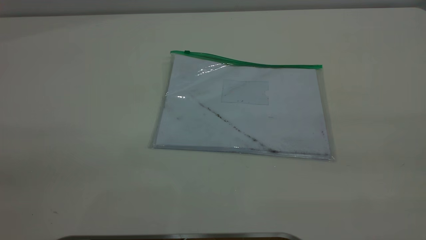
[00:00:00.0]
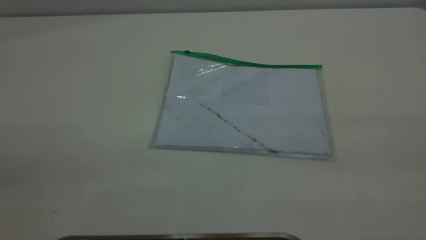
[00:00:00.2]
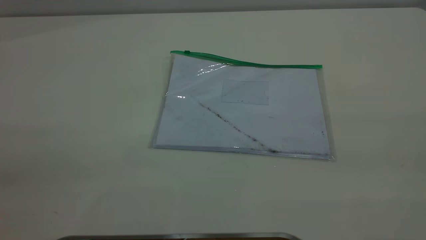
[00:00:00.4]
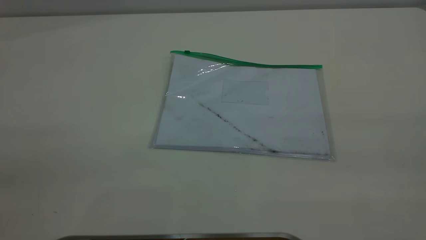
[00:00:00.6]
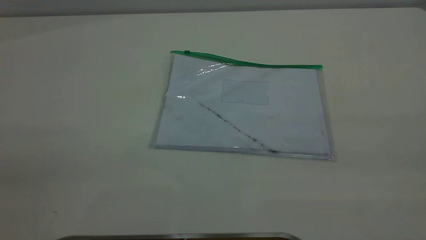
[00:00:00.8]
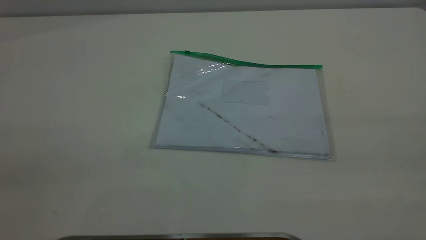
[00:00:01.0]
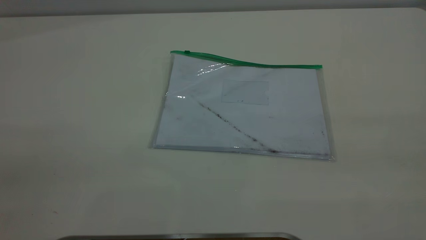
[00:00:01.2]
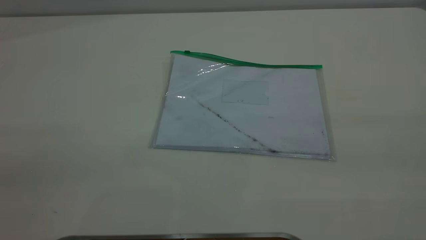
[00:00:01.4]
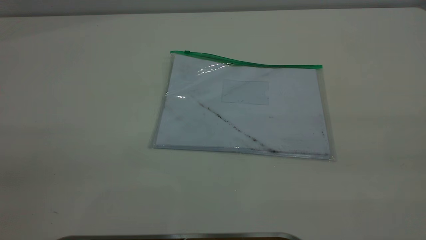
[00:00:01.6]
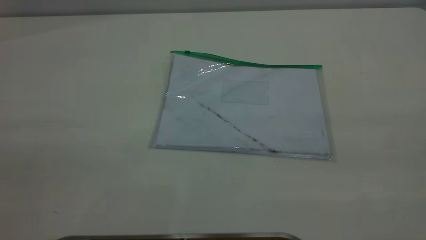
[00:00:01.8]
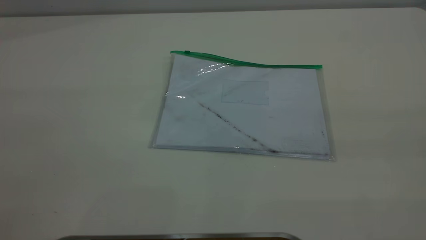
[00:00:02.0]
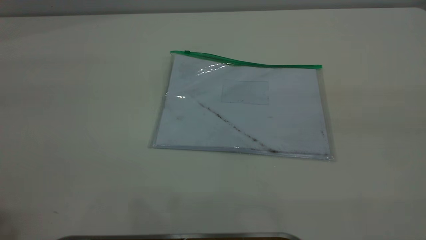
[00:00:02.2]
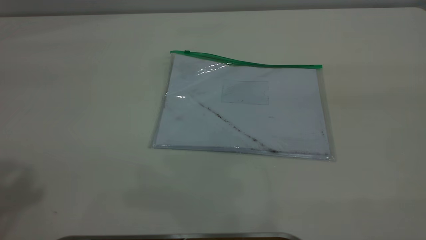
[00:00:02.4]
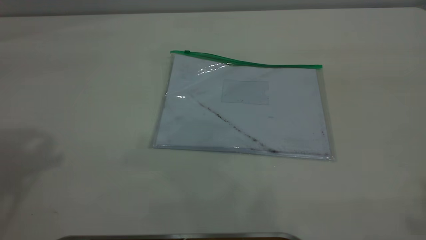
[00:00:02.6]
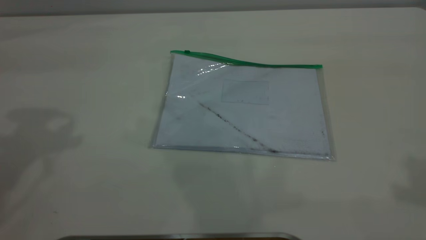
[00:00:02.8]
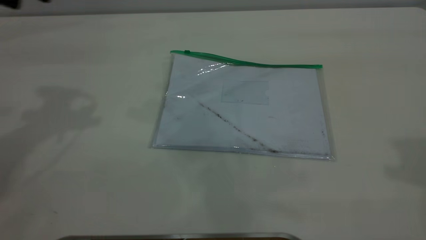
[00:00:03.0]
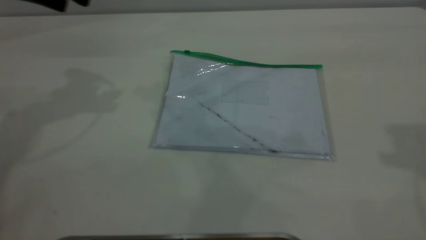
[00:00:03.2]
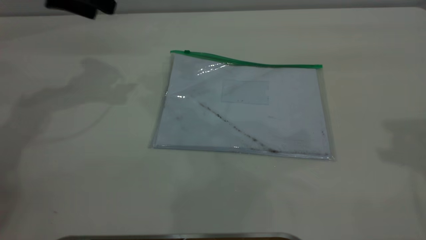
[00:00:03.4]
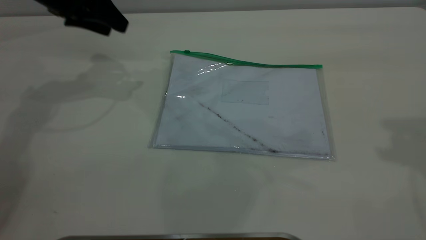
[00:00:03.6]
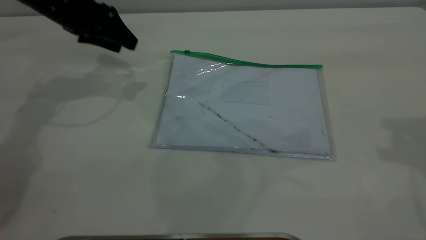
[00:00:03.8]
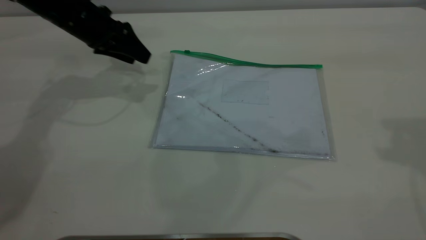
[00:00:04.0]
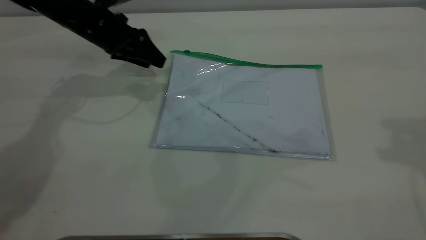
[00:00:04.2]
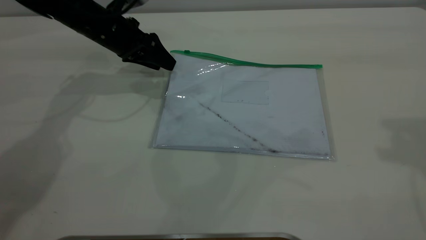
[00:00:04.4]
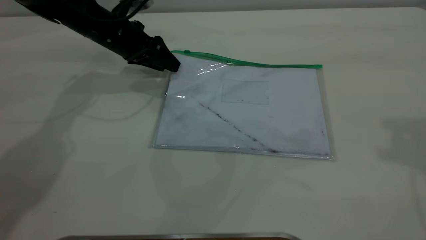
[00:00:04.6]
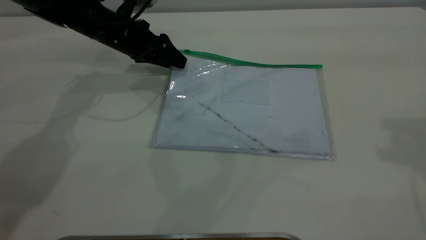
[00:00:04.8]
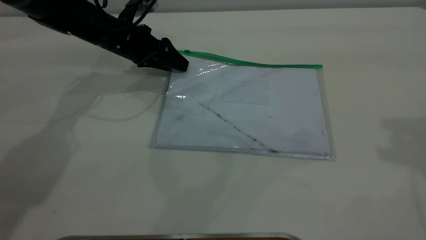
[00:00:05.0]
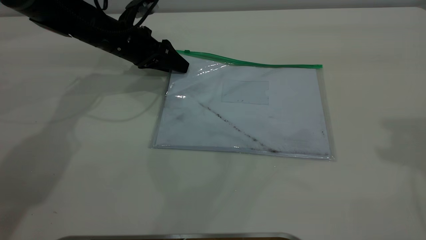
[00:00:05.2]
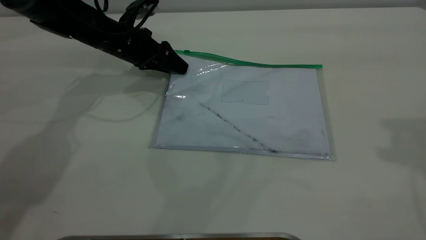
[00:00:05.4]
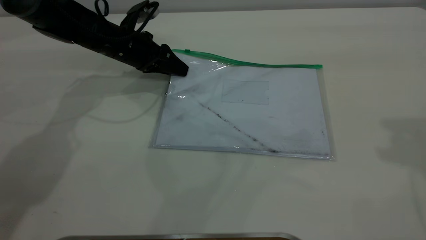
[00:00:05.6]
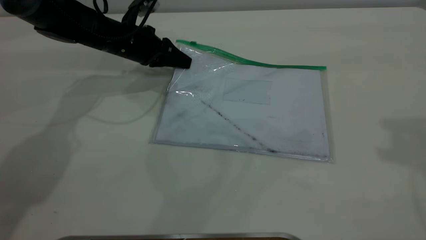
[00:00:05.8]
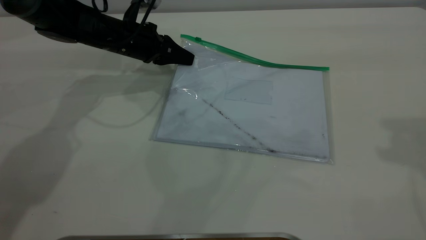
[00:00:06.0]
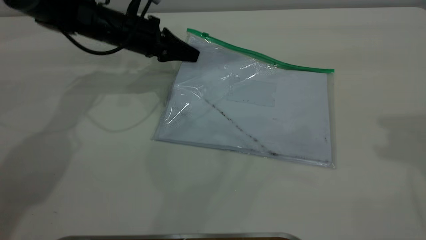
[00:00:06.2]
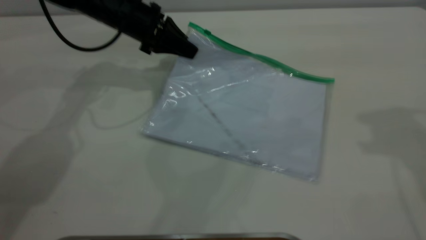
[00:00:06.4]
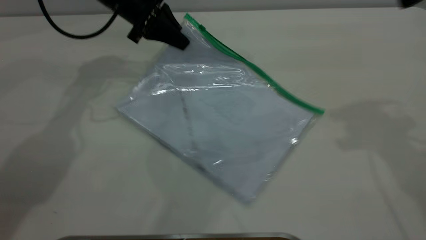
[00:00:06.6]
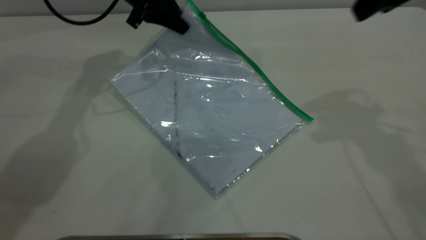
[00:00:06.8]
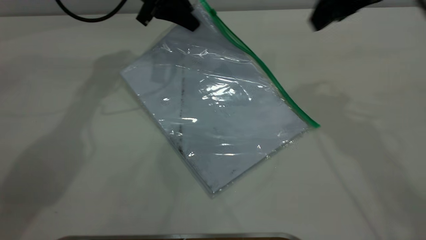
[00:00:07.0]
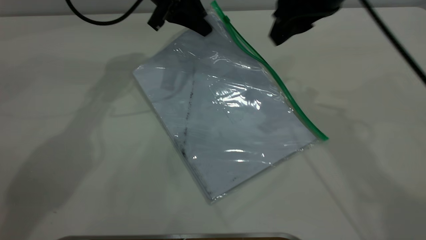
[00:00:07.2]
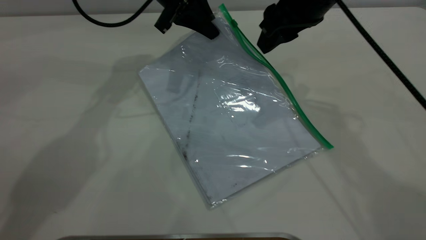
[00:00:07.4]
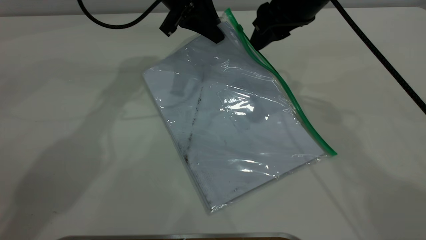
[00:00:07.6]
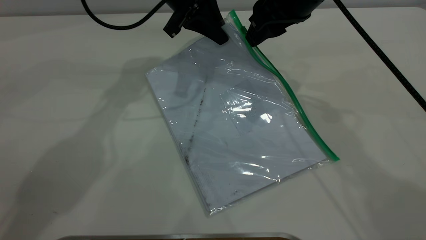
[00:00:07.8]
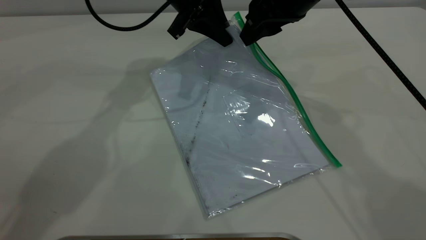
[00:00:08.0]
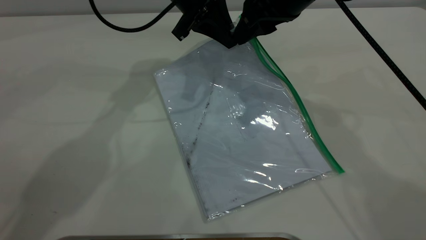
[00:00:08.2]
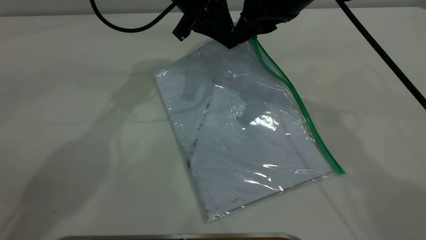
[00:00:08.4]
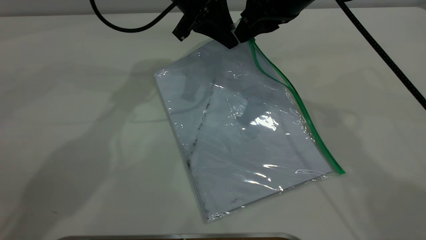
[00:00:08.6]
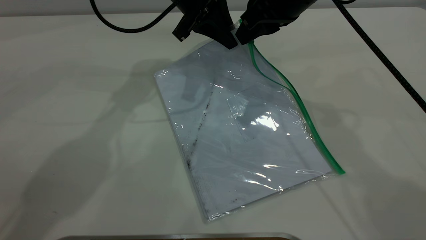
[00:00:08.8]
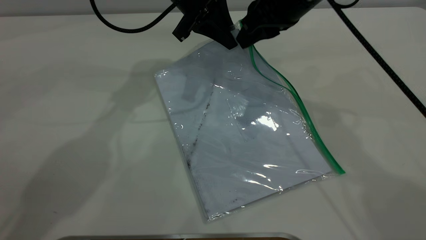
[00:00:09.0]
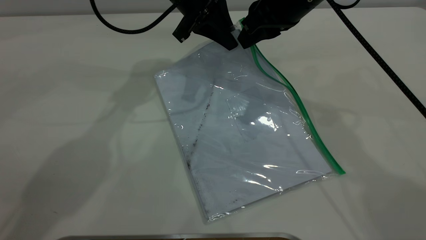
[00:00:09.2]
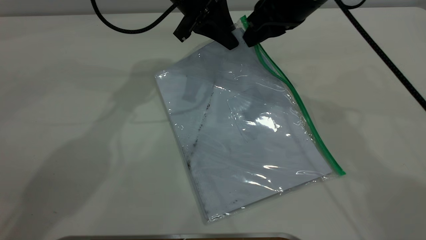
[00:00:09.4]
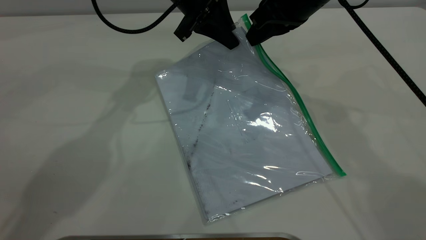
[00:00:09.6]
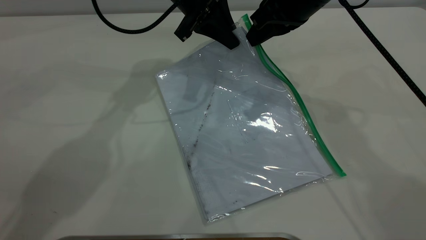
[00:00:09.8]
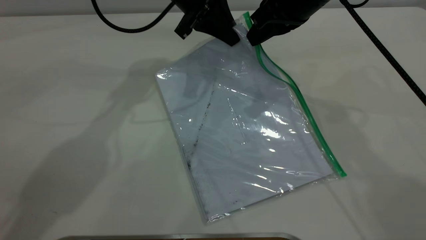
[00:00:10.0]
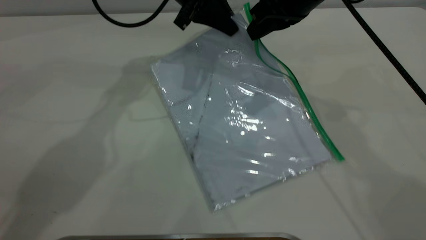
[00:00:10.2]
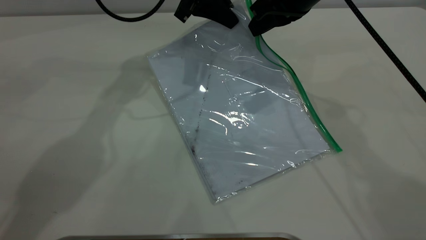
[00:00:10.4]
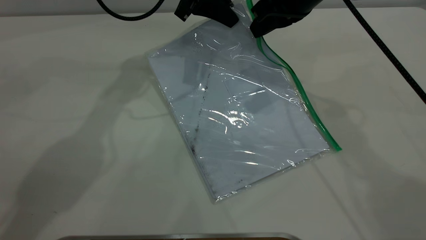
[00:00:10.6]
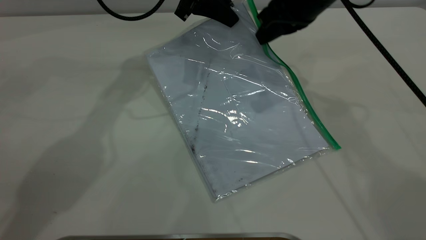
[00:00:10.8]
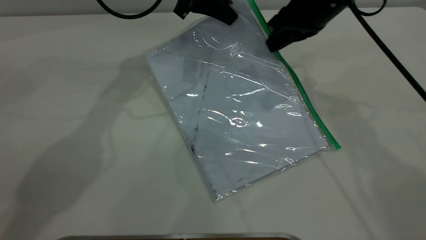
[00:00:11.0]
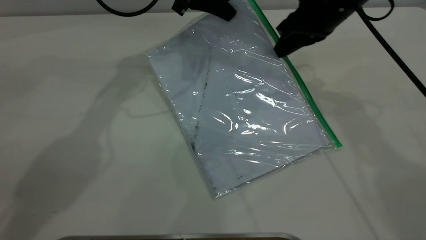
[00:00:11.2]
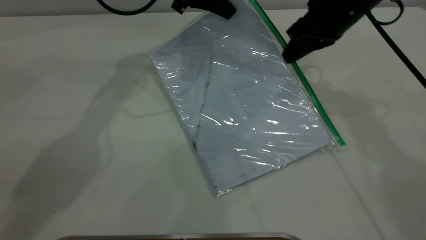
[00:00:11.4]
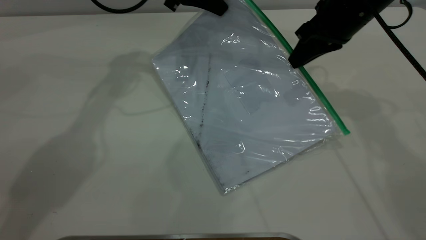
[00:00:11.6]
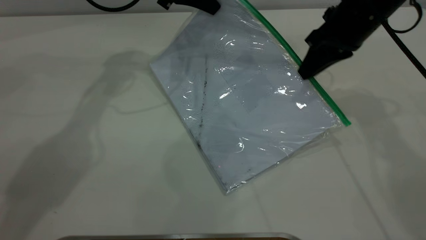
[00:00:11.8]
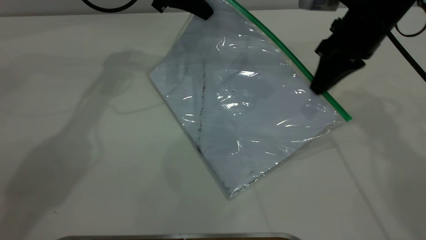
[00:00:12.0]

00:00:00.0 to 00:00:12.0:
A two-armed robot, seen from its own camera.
Step, 00:00:00.0 to 00:00:06.4: Pick up the transparent plastic bag with the left gripper.
00:00:00.0 to 00:00:01.6: Both grippers stay put.
00:00:03.0 to 00:00:04.4: The left gripper heads downward, forward and to the right, covering some 25 cm.
00:00:04.4 to 00:00:06.0: The left gripper closes.
00:00:06.0 to 00:00:07.6: The left gripper shifts about 15 cm upward and to the right. The right gripper travels to the left, downward and forward by about 25 cm.
00:00:07.6 to 00:00:09.0: The right gripper closes up.
00:00:09.0 to 00:00:10.4: The grippers make only small movements.
00:00:10.4 to 00:00:12.0: The right gripper heads to the right, covering some 10 cm.

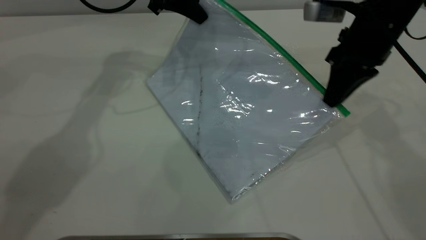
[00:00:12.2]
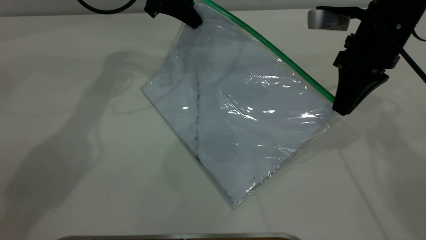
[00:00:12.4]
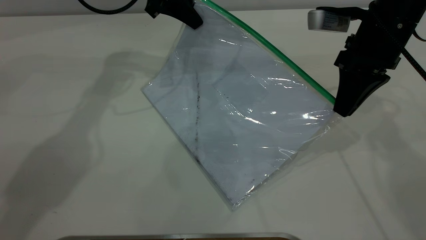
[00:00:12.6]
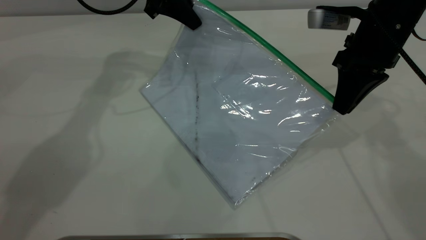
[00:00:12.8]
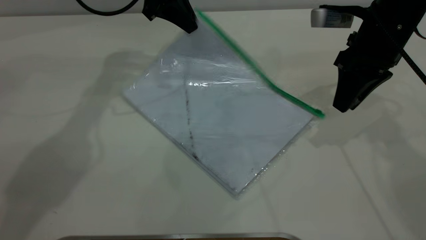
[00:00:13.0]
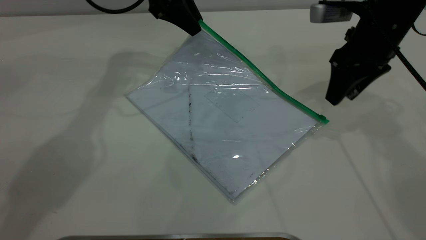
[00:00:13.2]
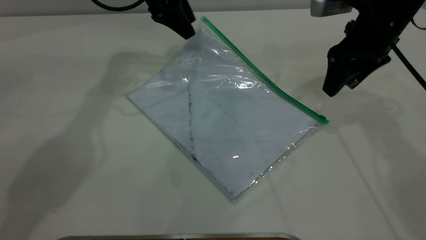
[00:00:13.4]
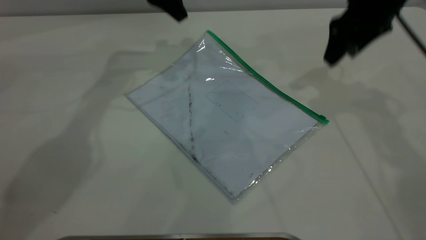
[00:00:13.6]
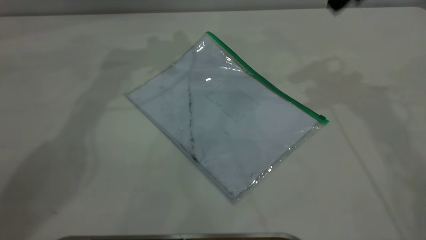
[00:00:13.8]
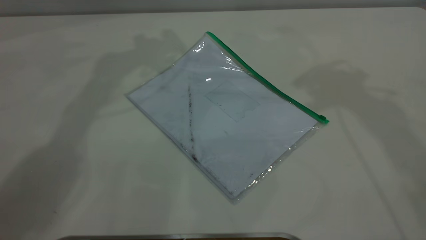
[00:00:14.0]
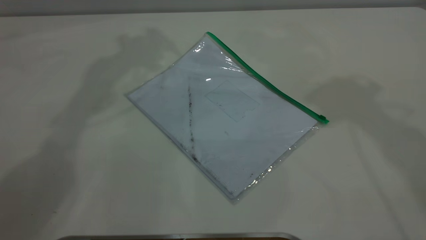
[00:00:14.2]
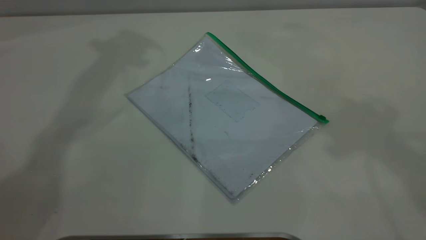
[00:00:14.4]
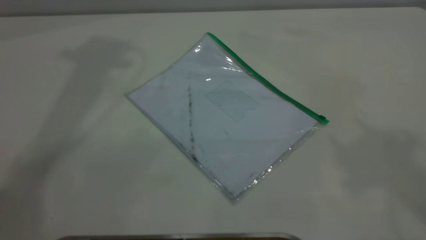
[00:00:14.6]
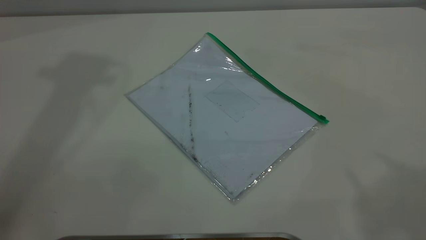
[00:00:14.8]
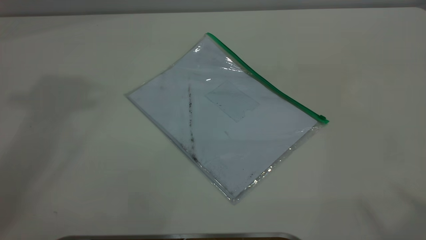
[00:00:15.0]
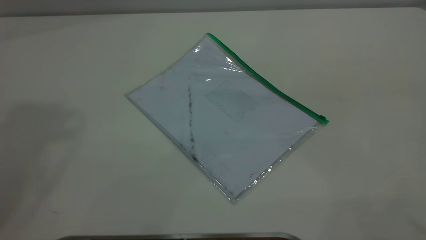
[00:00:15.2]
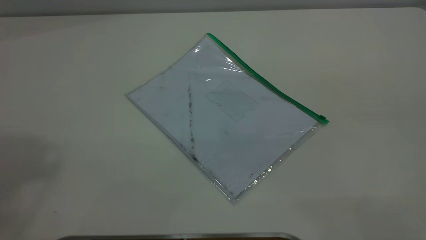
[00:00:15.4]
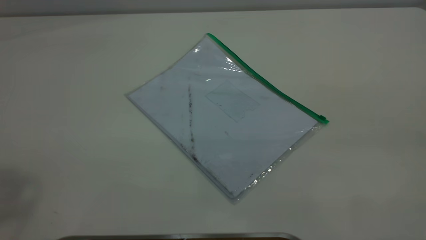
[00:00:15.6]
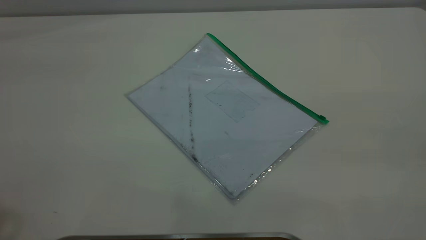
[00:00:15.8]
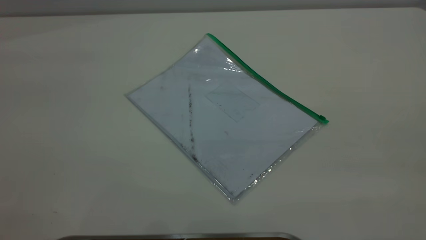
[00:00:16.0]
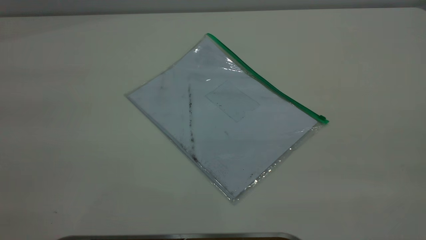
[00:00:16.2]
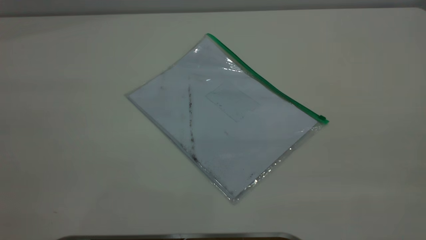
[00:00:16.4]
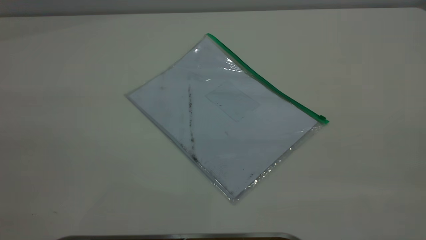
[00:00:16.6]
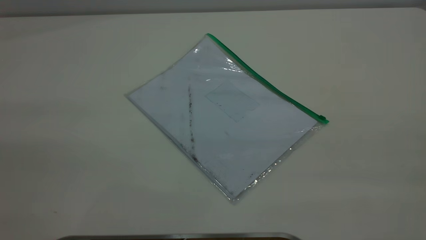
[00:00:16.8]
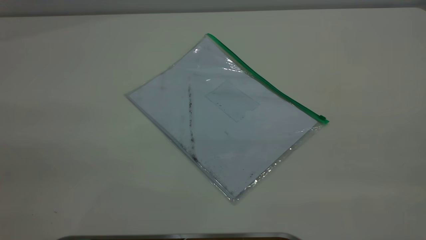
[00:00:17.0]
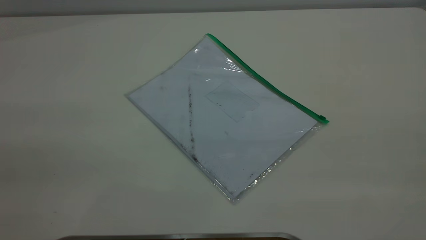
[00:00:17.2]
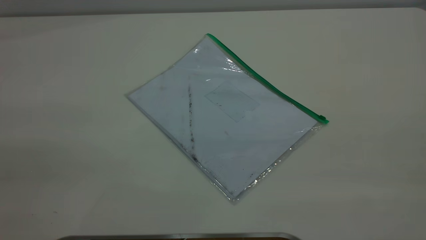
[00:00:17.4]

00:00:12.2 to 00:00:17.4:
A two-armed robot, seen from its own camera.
Step, 00:00:13.2 to 00:00:13.4: Place the transparent plastic bag.
00:00:12.2 to 00:00:14.0: Both grippers travel together upward, approximately 20 cm. The right gripper opens up. The left gripper opens up.
